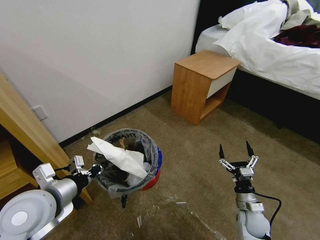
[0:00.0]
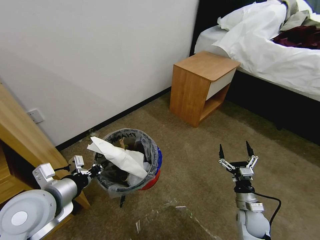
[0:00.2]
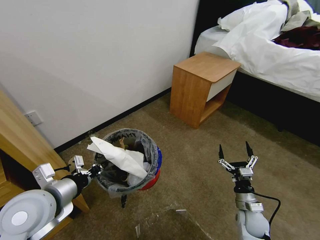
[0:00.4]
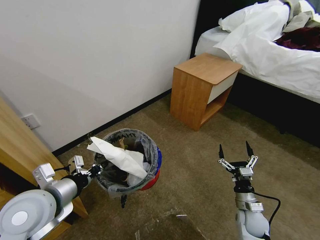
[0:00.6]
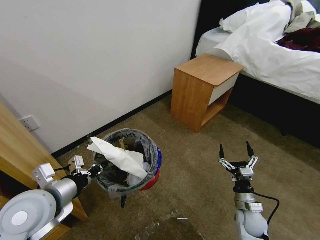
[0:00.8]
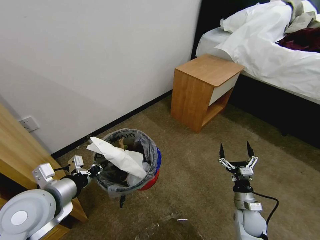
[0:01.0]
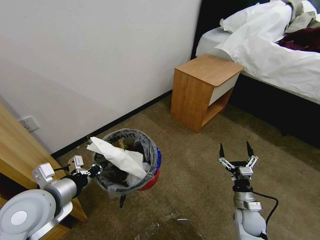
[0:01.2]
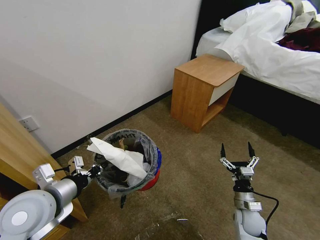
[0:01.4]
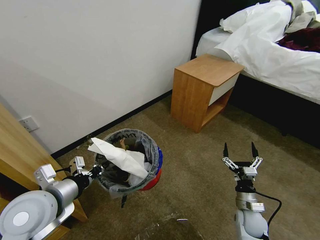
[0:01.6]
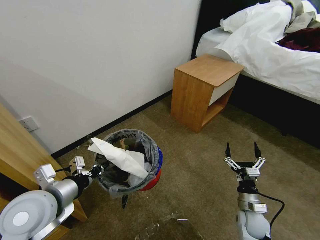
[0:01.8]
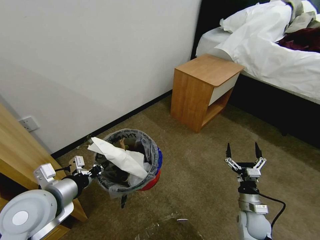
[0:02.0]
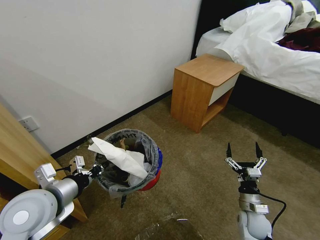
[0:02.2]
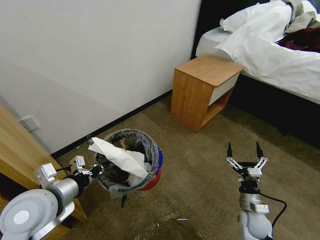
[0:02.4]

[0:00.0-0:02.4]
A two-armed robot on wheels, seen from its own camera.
Task of the whole recording: Pick up the trash bin and place the garbage on the floor into it.
0:00.0 to 0:01.2: Both grippers stay about where they are.
0:01.2 to 0:02.4: The grippers stay close to where they were, moving slightly.
